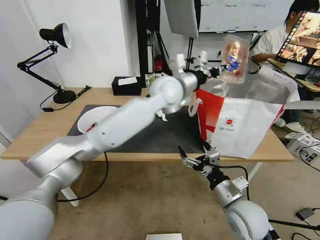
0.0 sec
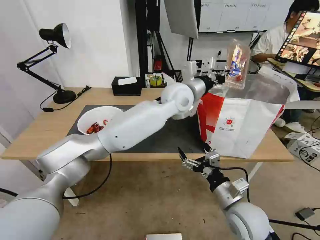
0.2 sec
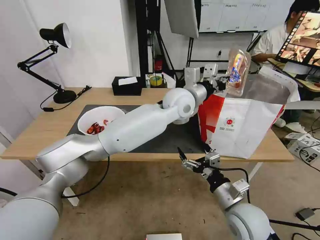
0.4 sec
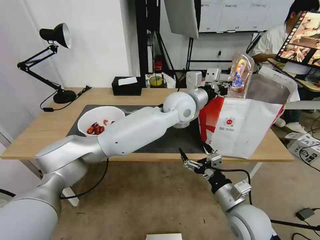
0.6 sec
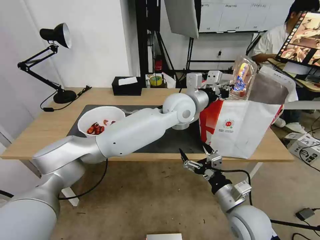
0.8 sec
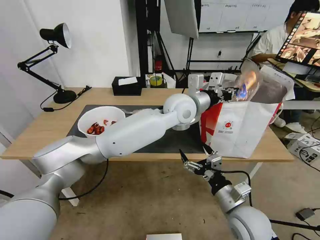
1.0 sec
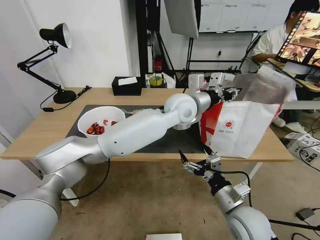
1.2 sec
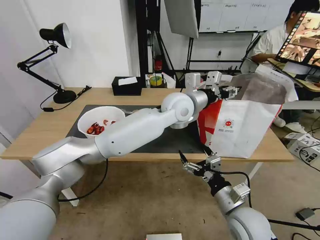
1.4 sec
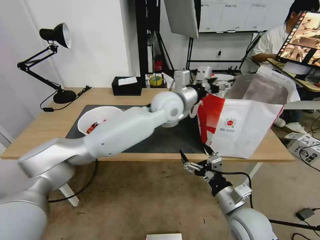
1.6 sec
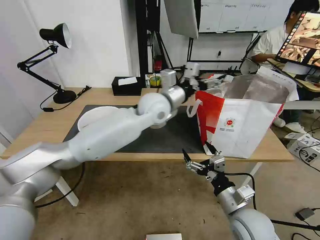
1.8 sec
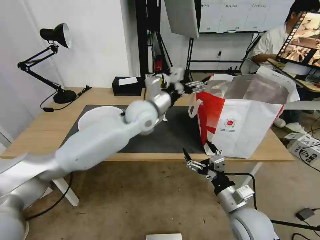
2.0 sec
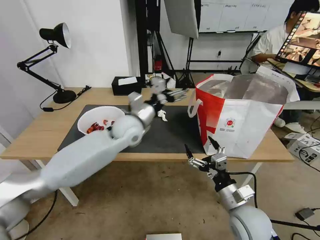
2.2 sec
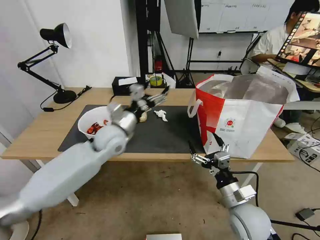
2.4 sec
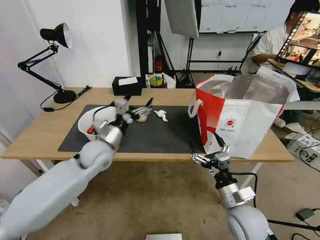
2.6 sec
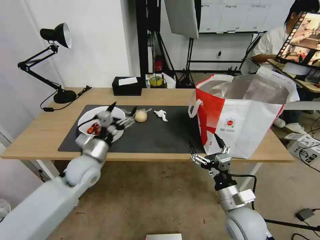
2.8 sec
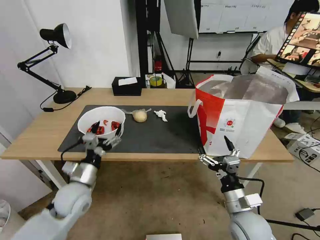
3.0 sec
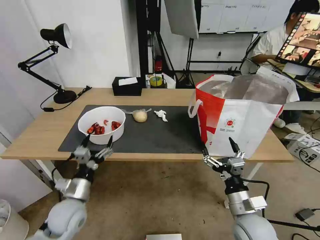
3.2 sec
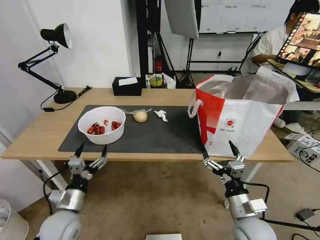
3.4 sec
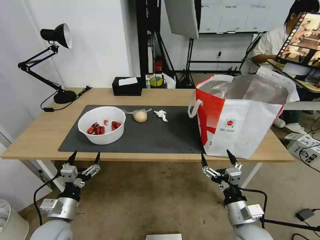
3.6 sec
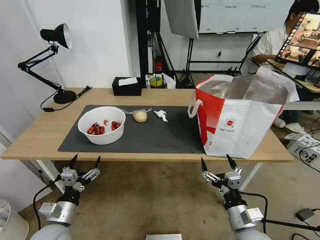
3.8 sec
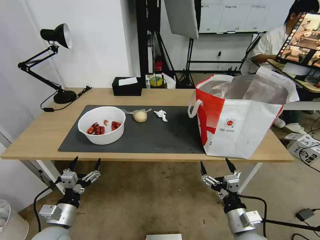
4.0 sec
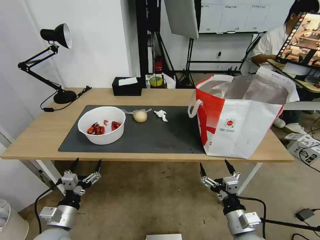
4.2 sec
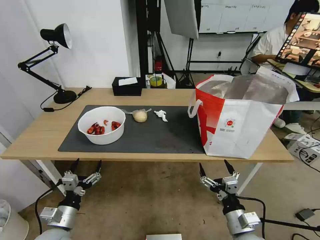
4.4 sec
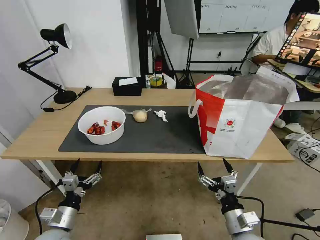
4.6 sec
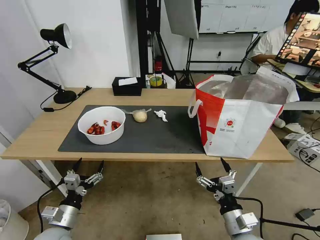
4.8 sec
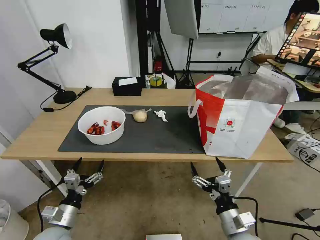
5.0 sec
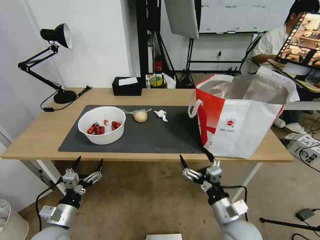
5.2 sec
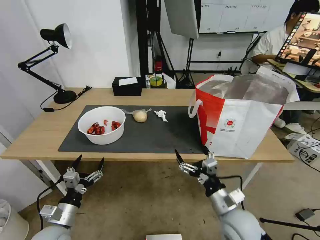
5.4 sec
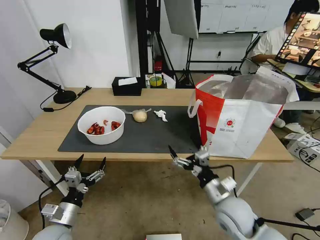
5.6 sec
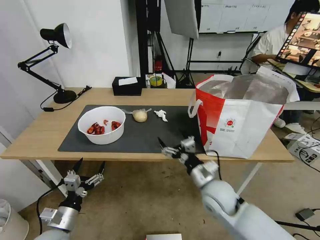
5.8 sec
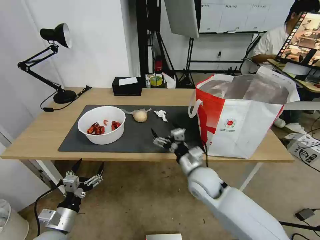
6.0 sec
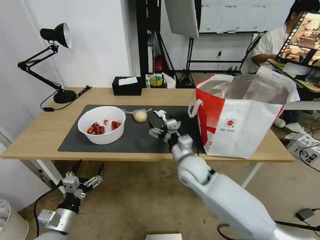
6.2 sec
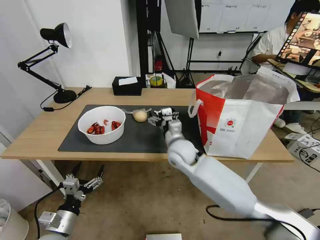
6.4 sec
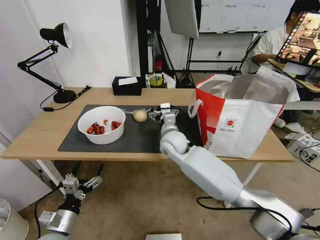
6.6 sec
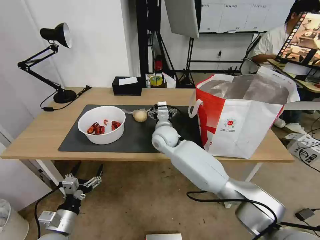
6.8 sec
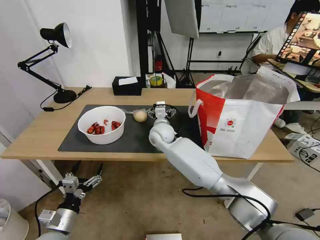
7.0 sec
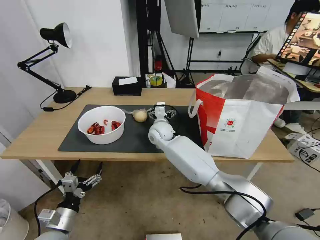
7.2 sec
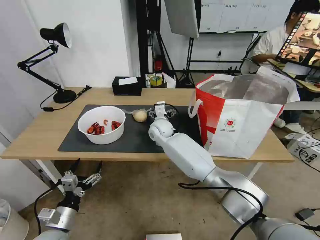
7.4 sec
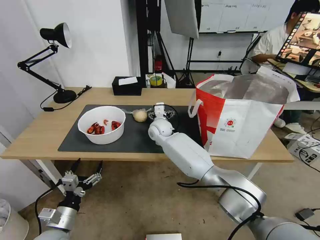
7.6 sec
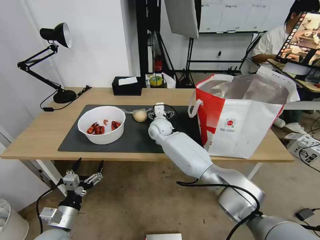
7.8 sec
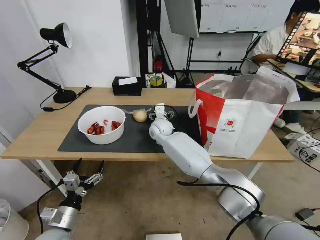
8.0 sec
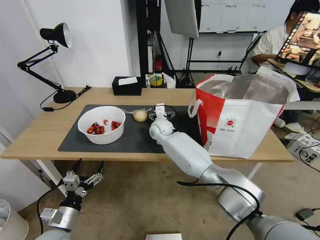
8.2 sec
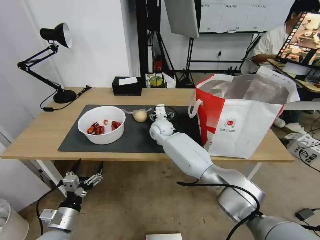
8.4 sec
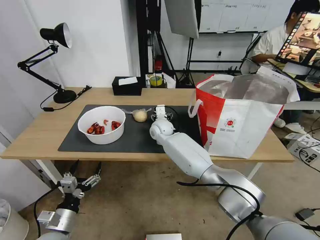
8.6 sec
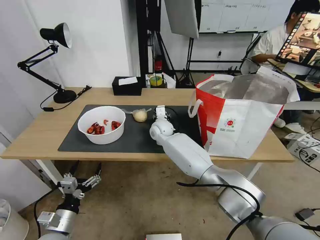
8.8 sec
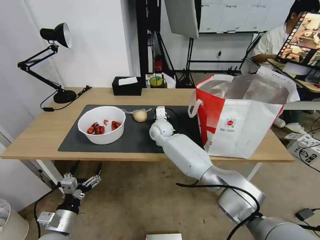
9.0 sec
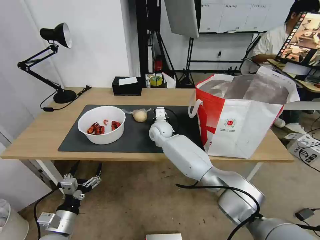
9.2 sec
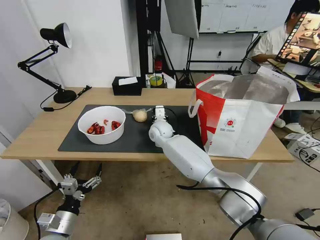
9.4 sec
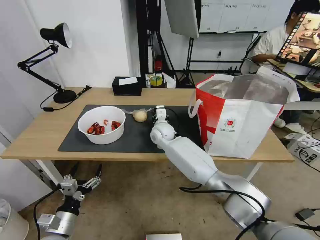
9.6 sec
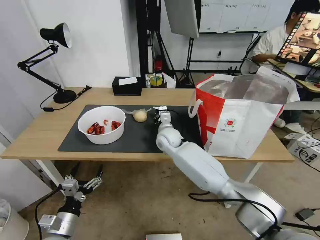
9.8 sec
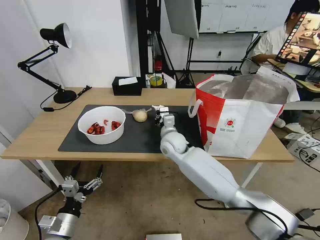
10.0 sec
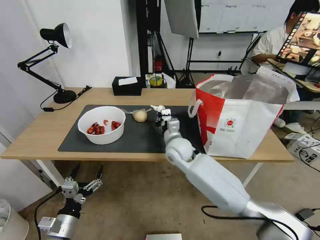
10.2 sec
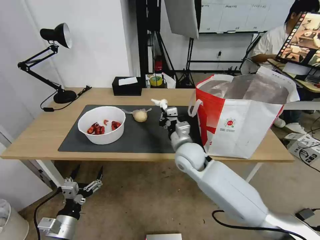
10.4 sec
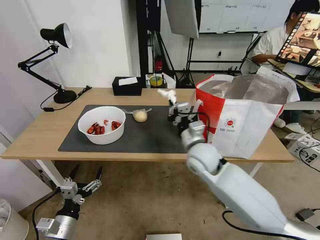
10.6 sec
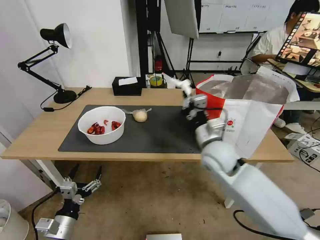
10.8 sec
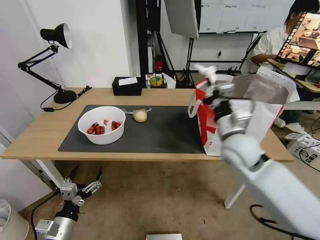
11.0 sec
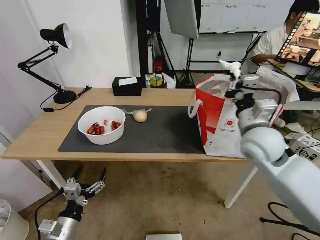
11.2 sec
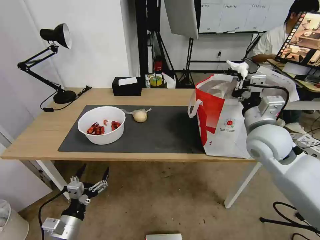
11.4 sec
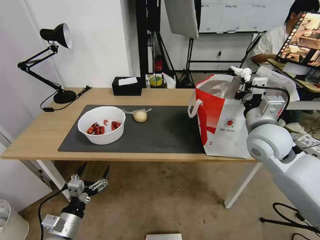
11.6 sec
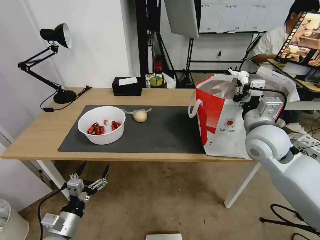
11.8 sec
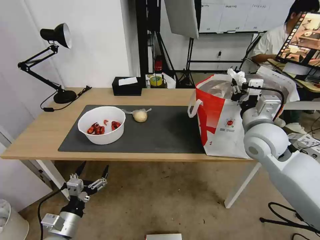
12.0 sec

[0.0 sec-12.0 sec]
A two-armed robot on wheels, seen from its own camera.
Task of the whole recording: Pick up the trash from the table and place it into the takeout bag.
0.0 sec to 1.6 sec: The left gripper opens up.
1.6 sec to 3.0 sec: The left gripper moves to the left, downward and backward, approximately 35 cm.
3.0 sec to 4.4 sec: The right gripper is displaced backward by about 5 cm; the left gripper heads backward, downward and to the left, covering about 20 cm.
4.4 sec to 6.0 sec: The right gripper heads forward and to the left, covering roughly 20 cm.
6.0 sec to 7.6 sec: The right gripper moves forward and to the left, about 25 cm.
7.6 sec to 9.0 sec: The right gripper closes its fingers.
9.0 sec to 10.4 sec: The right gripper is displaced backward and to the right by roughly 15 cm, and closes up.
10.4 sec to 12.0 sec: The right gripper is displaced to the right and upward by roughly 20 cm, and opens.

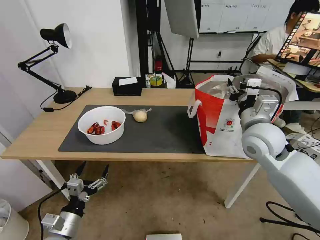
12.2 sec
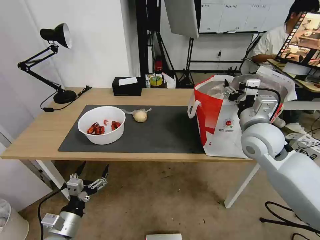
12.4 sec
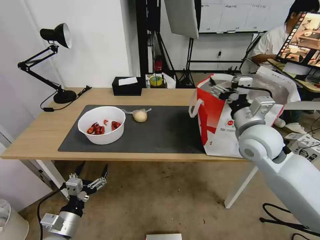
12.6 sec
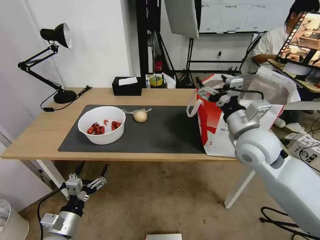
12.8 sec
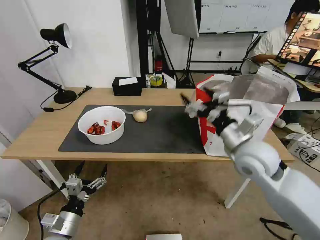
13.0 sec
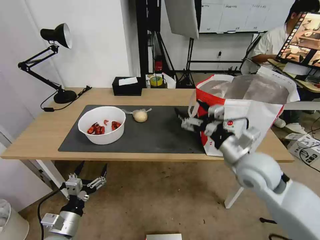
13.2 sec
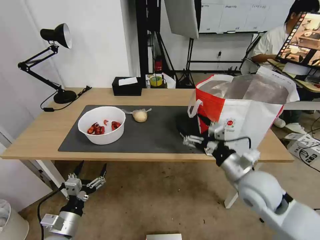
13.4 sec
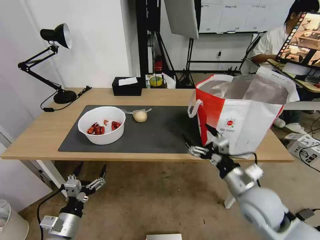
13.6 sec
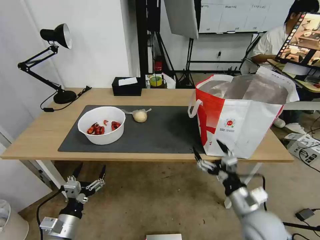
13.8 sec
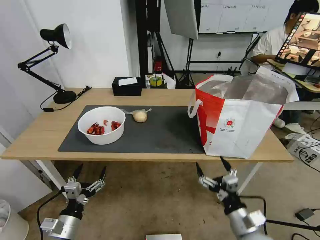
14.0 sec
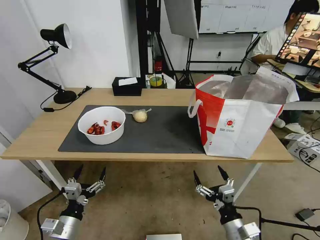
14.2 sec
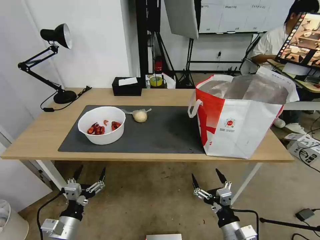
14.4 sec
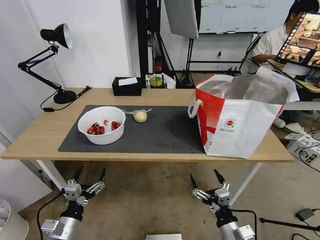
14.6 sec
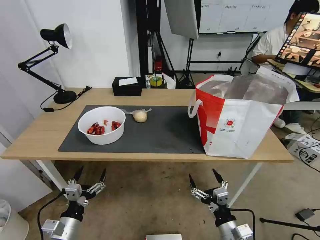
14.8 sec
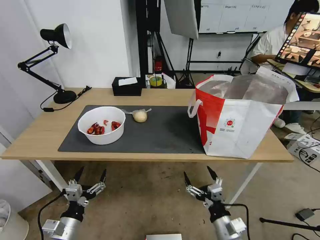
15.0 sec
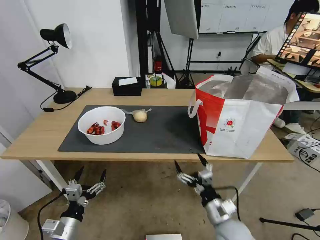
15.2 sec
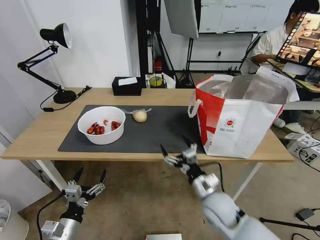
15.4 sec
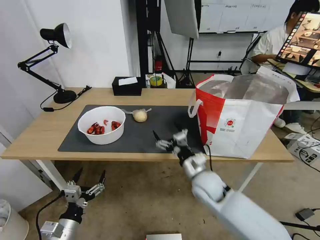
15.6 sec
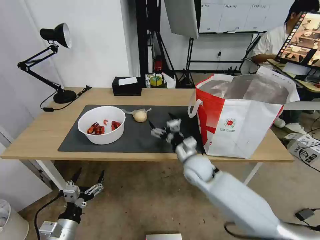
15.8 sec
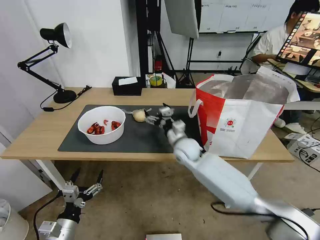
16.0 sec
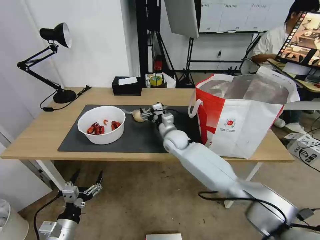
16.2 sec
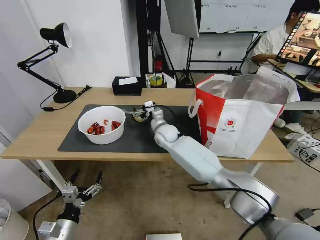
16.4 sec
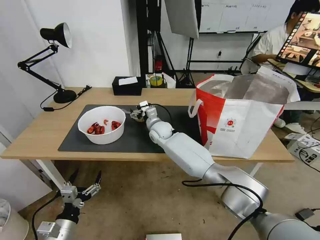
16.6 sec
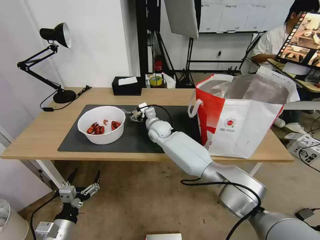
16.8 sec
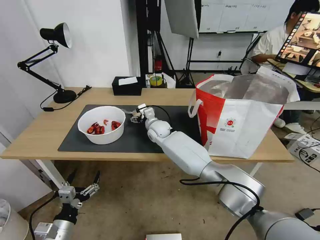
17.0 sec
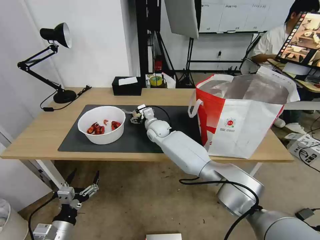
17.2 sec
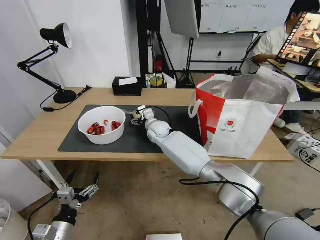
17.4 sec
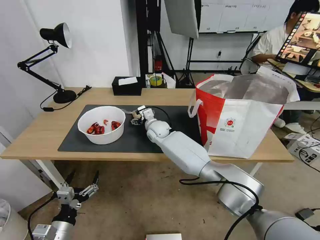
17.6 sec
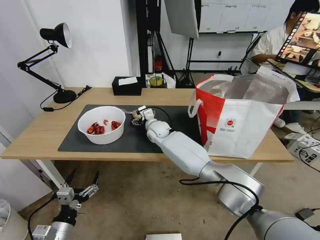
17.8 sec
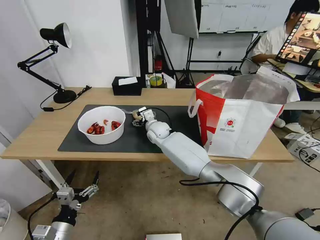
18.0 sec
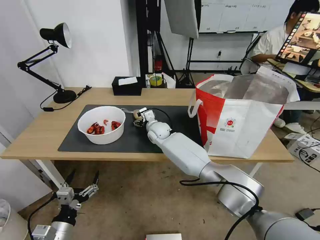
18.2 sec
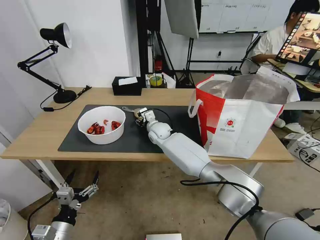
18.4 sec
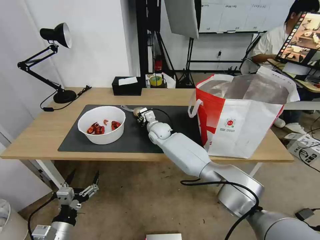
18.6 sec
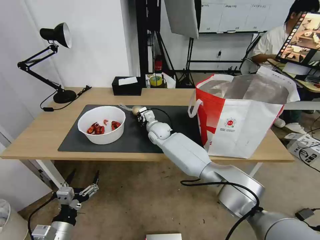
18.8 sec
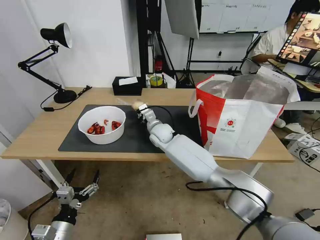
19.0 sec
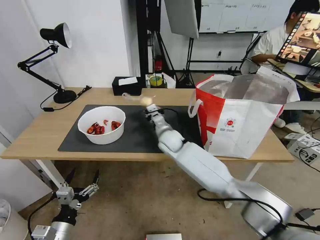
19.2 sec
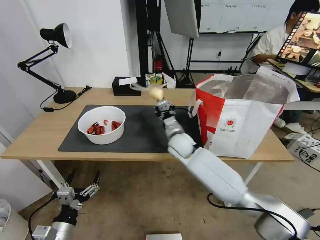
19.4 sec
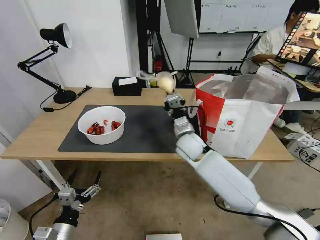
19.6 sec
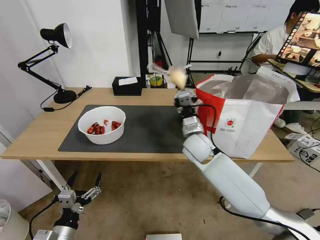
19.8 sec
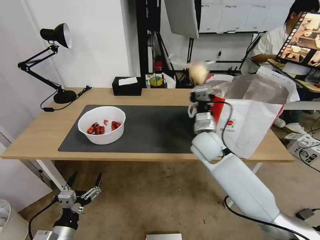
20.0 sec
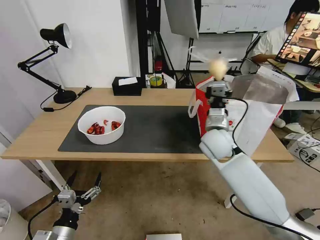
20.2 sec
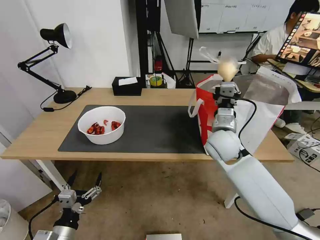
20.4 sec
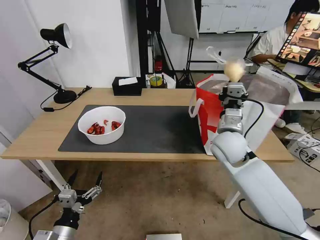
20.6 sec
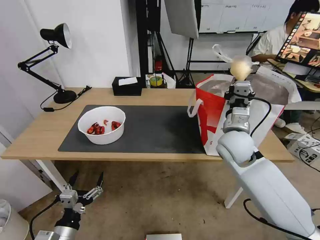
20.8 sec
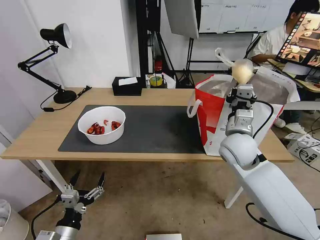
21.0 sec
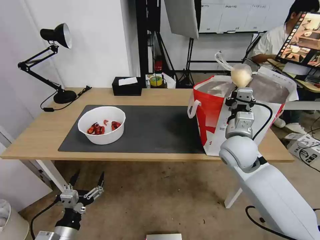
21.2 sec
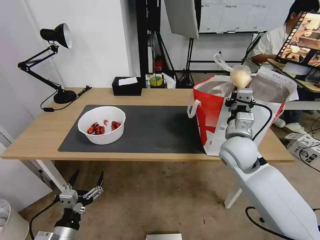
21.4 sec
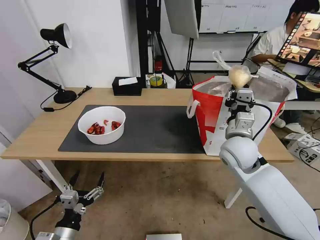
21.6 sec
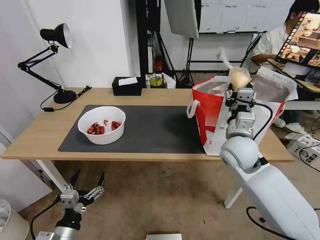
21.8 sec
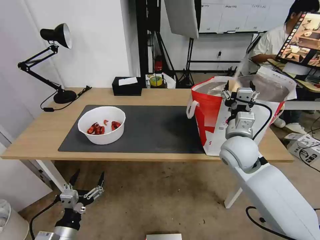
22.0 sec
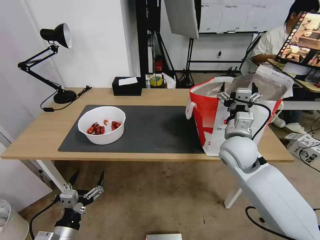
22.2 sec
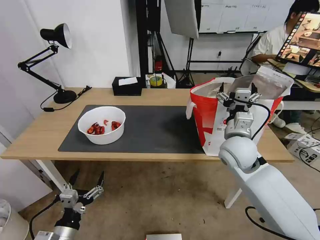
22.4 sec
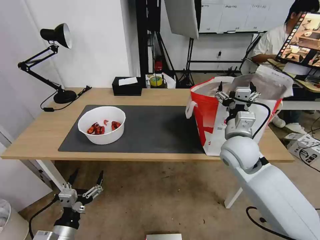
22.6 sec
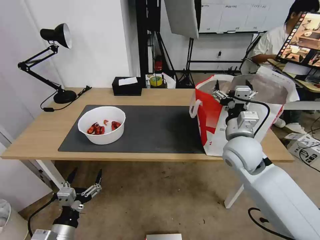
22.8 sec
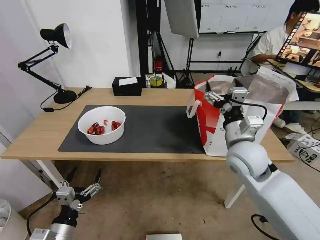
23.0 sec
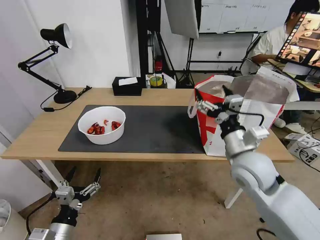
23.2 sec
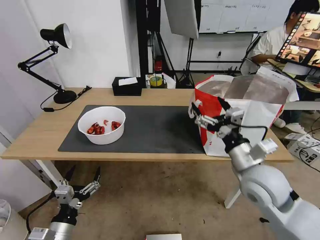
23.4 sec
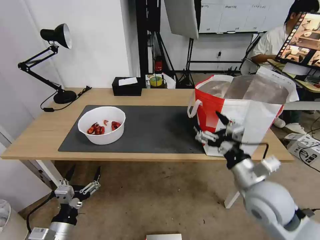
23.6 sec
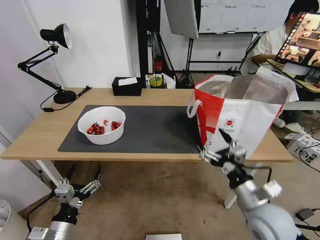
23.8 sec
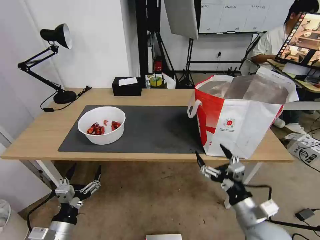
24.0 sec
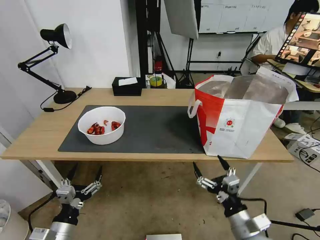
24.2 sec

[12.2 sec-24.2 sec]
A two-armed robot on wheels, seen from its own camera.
Task of the whole recording: Pick up the trash from the table and place it into the takeout bag.
12.2 sec to 13.8 sec: The right gripper moves backward and downward, some 25 cm, and opens.
13.8 sec to 15.2 sec: The right gripper heads to the left and downward, covering about 10 cm.
15.2 sec to 16.6 sec: The right gripper travels forward and to the left by about 40 cm.
16.6 sec to 18.2 sec: The grippers stay close to where they were, moving slightly.
18.2 sec to 19.8 sec: The right gripper heads backward, to the right and upward, covering roughly 20 cm, and closes its fingers.
19.8 sec to 21.2 sec: The right gripper goes approximately 10 cm to the right, backward and upward.
21.2 sec to 22.6 sec: The right gripper opens its fingers.
22.6 sec to 24.2 sec: The right gripper is displaced backward and downward by some 25 cm.
